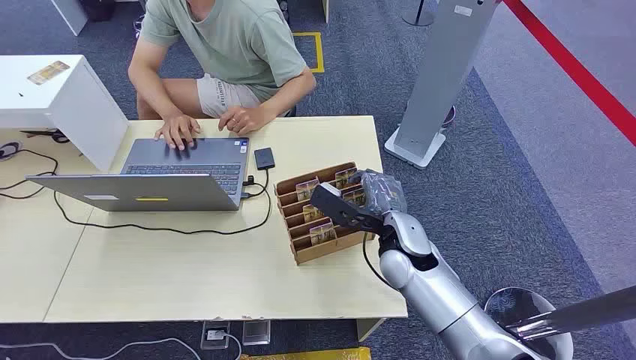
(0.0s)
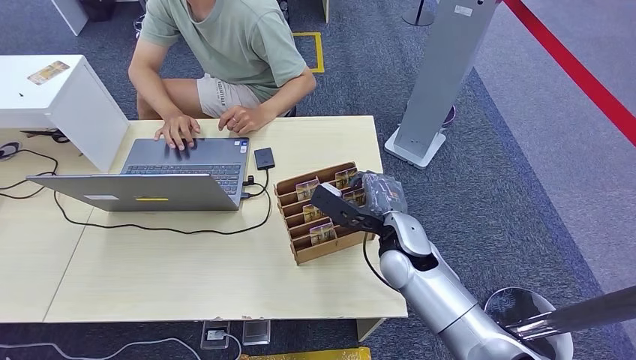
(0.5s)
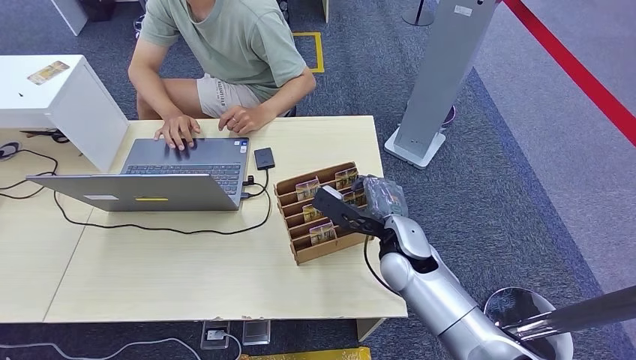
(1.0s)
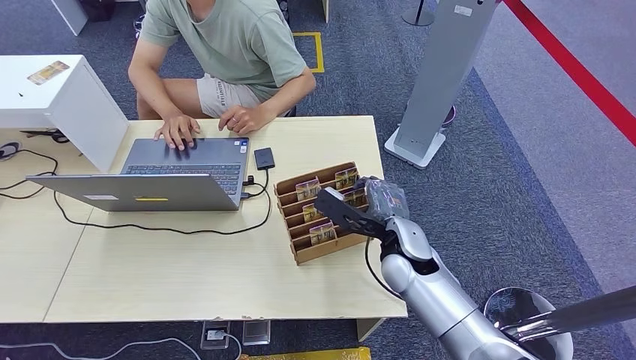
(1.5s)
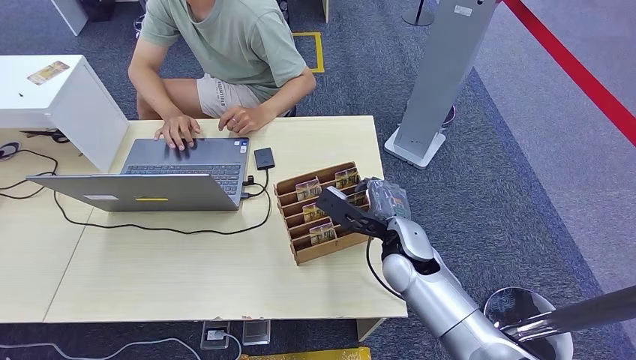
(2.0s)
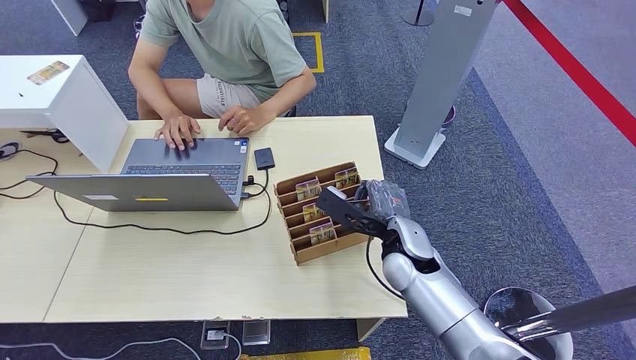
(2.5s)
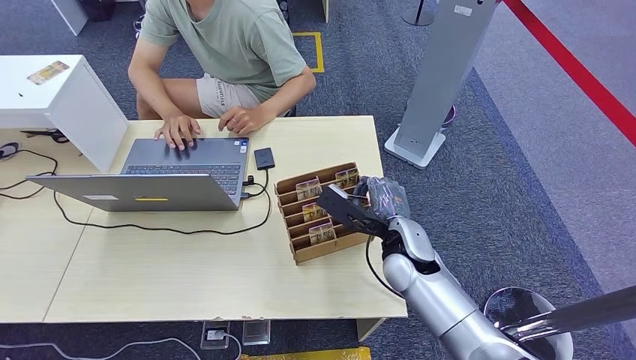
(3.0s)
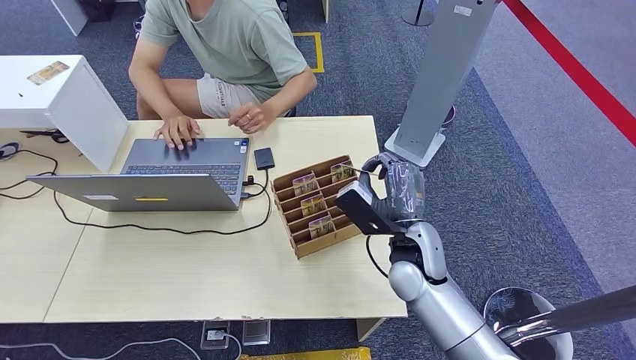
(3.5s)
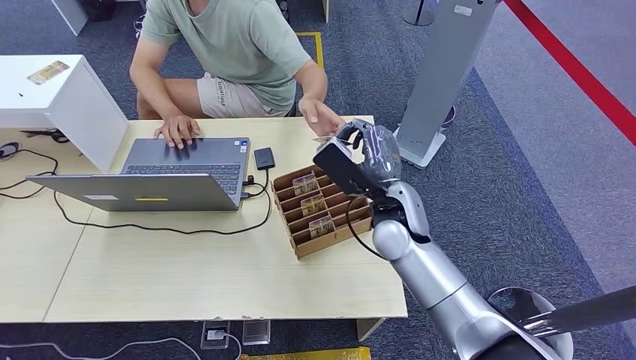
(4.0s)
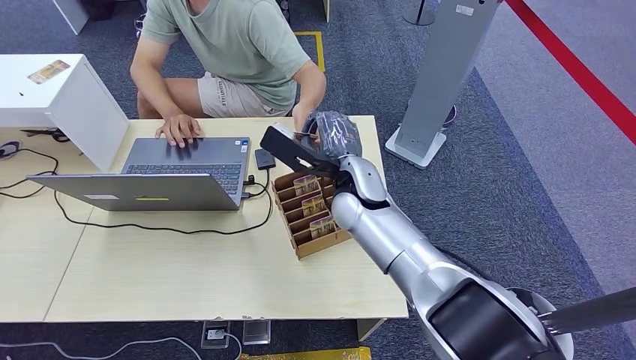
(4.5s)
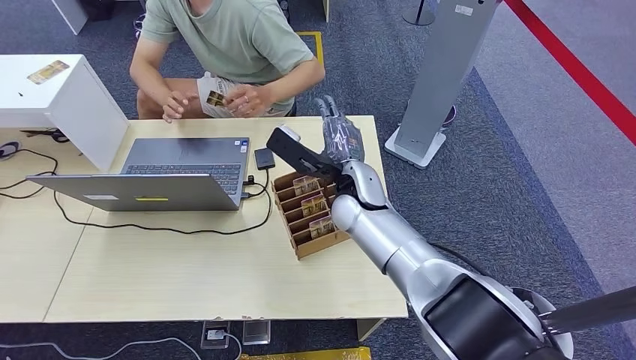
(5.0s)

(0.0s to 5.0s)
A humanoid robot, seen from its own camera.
Step, 0.0s - 3.5s: Pick up the room card from the card holder.
Step, 4.5s - 5.0s: Hand the room card to the target.
2.5s - 5.0s: The right hand heads forward, to the left and upward, covering roughly 15 cm.
